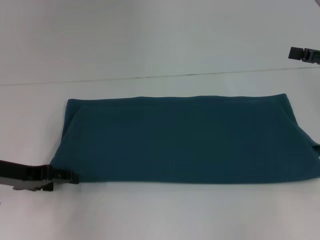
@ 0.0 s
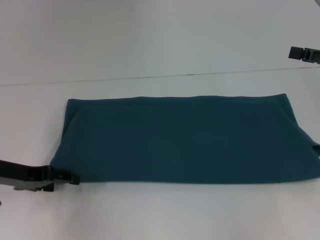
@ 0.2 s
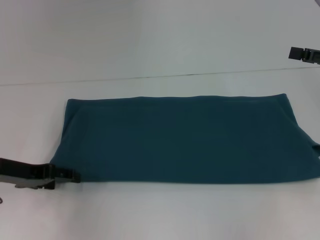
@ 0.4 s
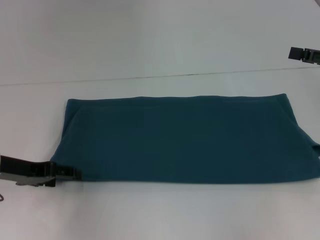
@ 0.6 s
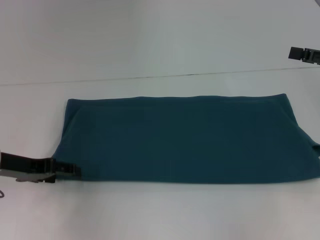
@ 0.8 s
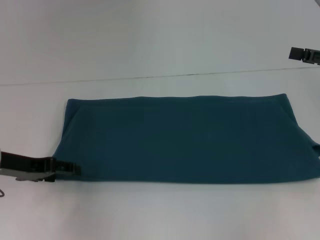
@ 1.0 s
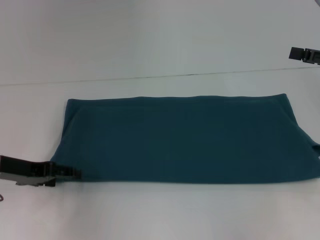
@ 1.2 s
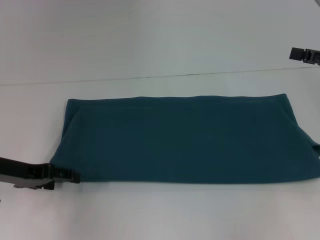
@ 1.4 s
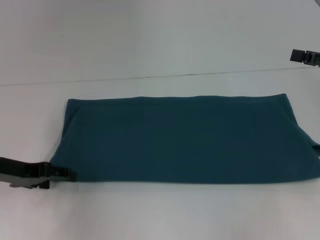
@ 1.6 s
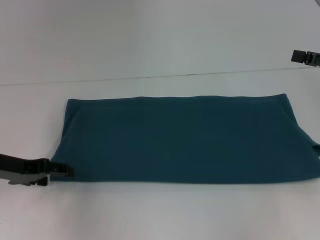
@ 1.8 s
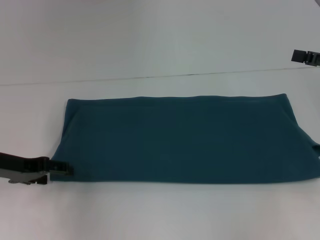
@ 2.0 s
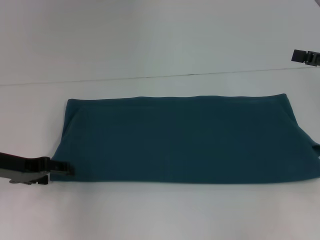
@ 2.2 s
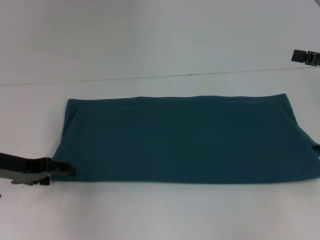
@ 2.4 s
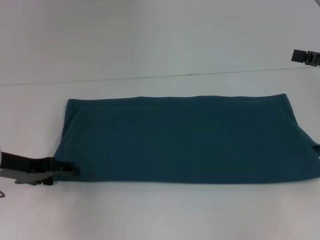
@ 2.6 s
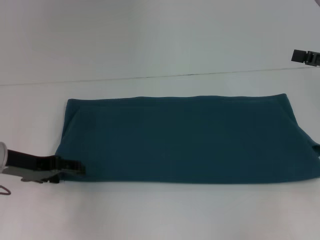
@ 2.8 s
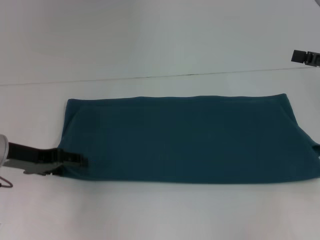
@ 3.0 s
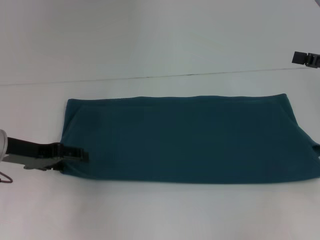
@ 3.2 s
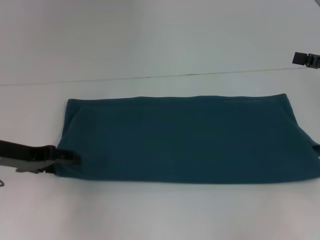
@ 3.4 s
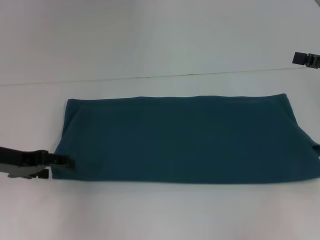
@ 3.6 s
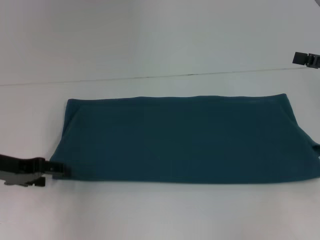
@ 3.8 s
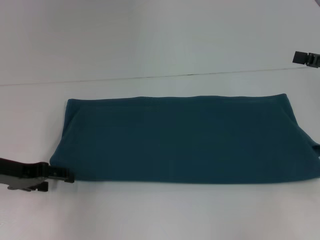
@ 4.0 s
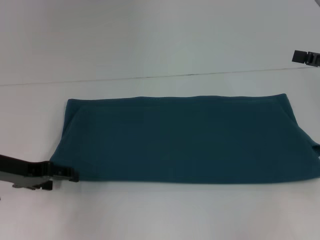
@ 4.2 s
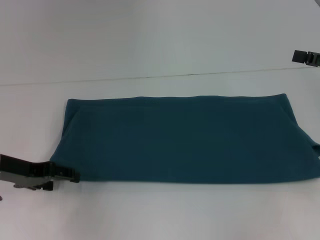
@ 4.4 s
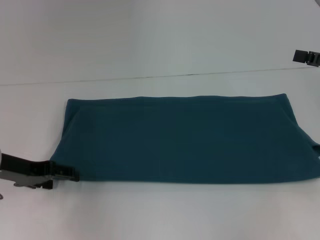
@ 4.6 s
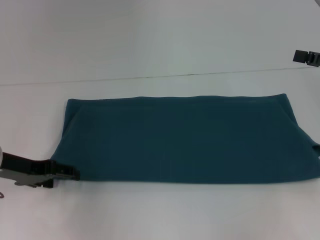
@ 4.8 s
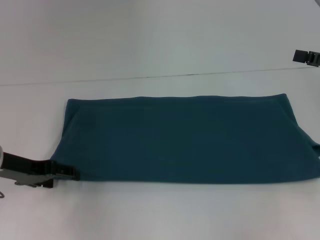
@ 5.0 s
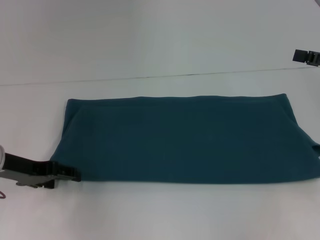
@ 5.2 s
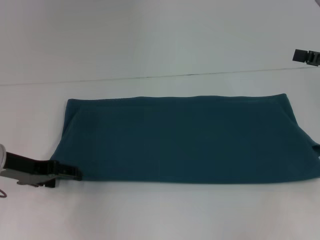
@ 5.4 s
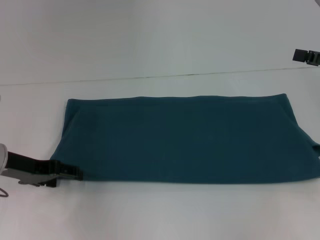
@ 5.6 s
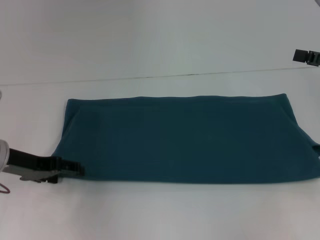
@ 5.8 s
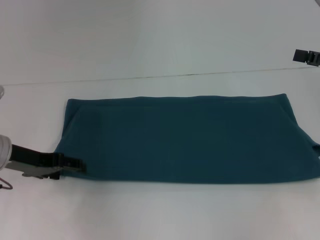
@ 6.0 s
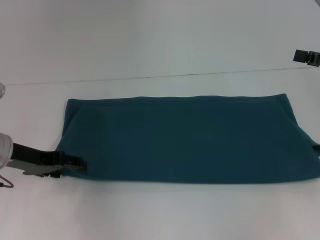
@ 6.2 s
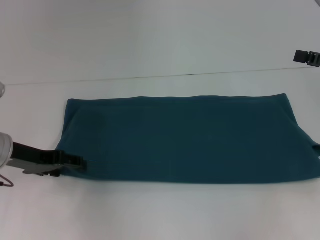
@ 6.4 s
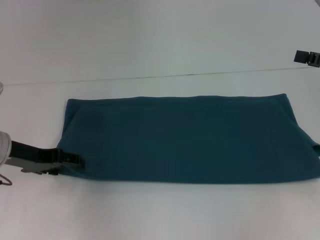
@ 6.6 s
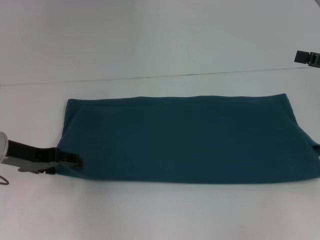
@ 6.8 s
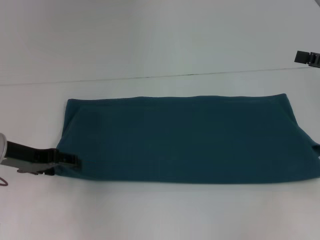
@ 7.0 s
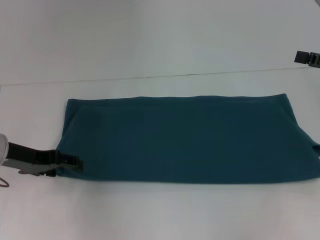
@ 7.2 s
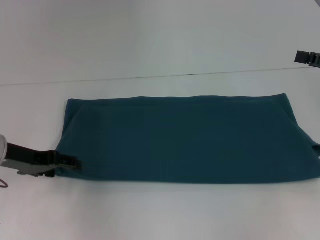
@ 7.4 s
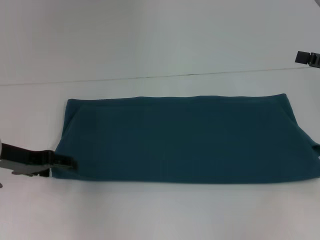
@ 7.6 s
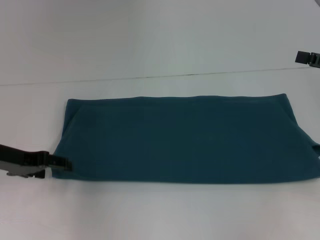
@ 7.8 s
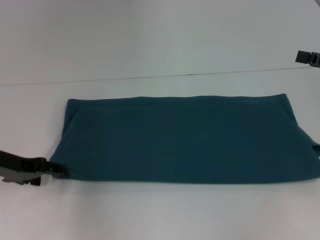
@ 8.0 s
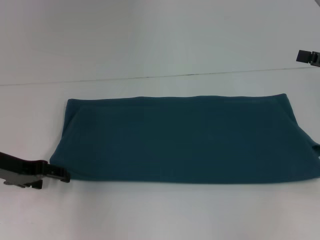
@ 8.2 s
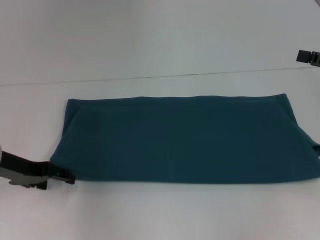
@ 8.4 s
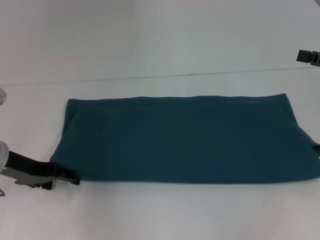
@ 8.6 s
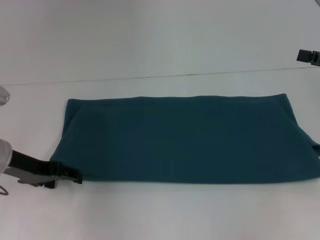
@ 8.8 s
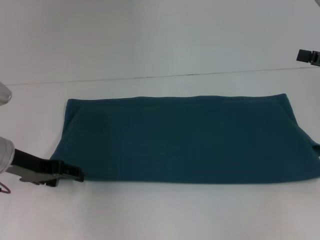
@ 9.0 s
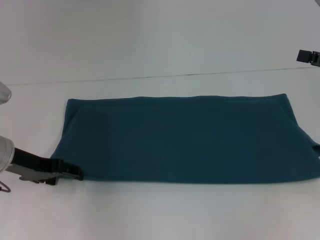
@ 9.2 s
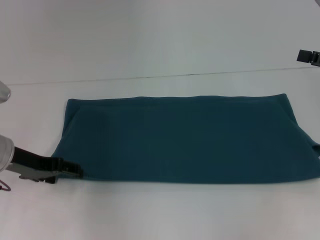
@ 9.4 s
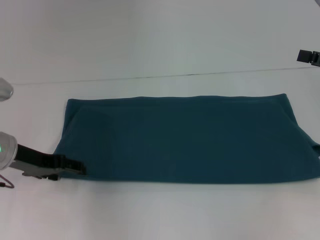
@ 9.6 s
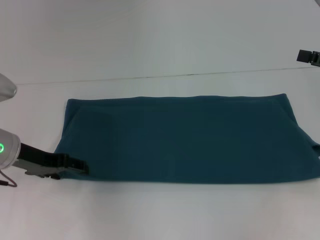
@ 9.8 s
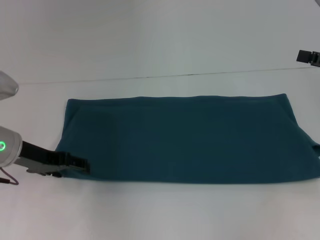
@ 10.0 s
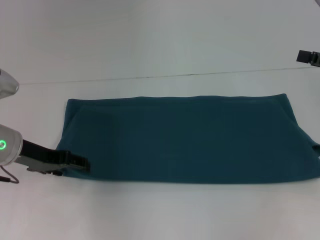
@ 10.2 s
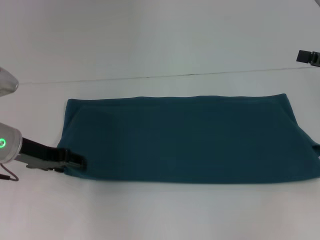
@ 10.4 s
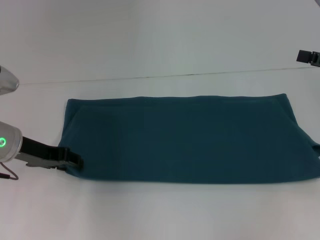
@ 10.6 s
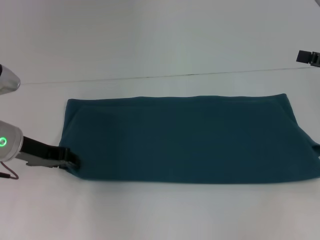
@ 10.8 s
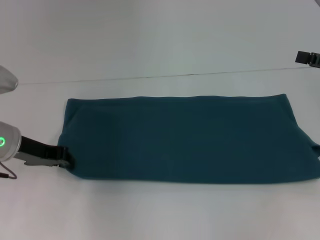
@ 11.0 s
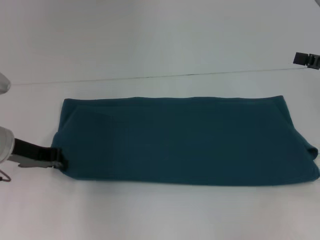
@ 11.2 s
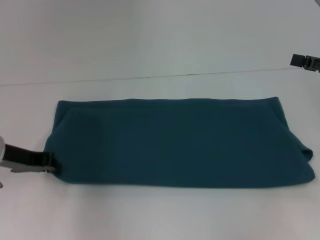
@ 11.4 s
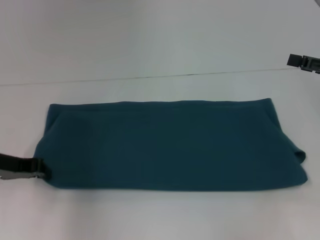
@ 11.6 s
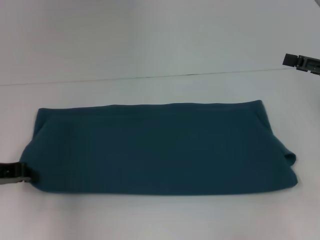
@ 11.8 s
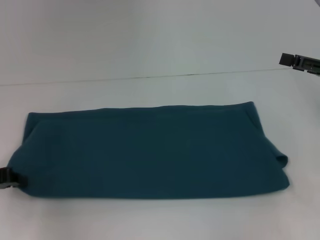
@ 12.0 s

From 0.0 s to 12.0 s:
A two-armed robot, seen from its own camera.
From 0.0 s to 1.6 s: Neither gripper changes place.
From 1.6 s to 6.0 s: There are only small adjustments of the grippers.
From 6.0 s to 7.6 s: Both grippers stay put.
From 7.6 s to 10.4 s: The grippers move only a little.
From 10.4 s to 12.0 s: The left gripper is displaced to the left and backward by approximately 10 cm, and closes its fingers.

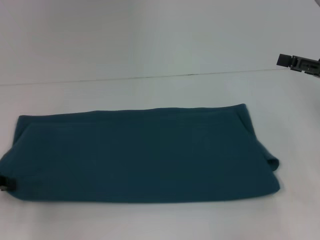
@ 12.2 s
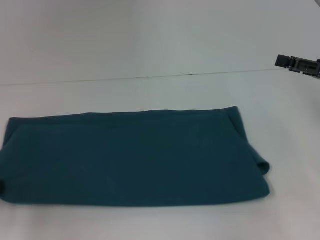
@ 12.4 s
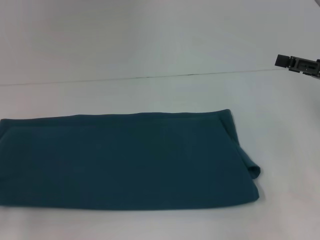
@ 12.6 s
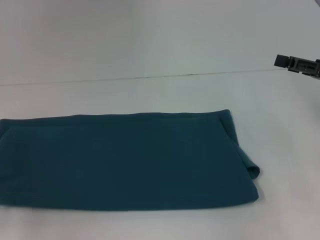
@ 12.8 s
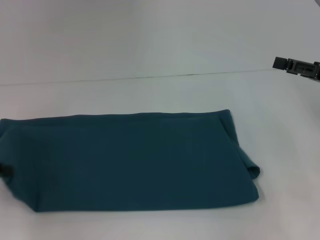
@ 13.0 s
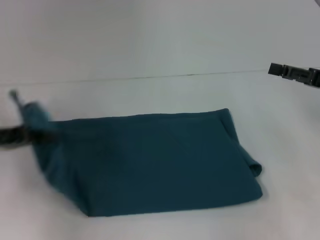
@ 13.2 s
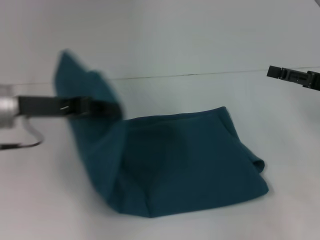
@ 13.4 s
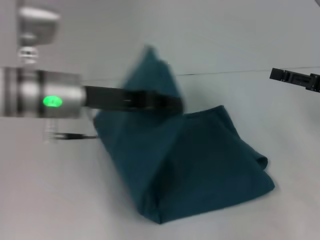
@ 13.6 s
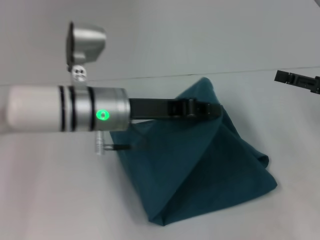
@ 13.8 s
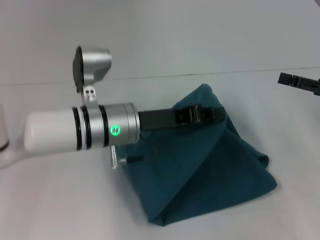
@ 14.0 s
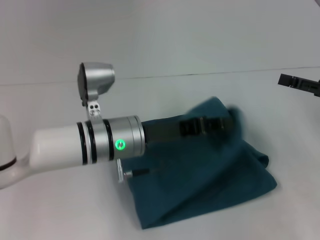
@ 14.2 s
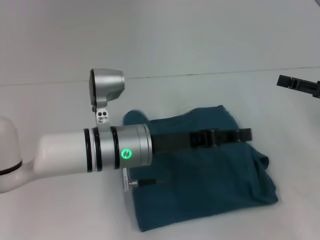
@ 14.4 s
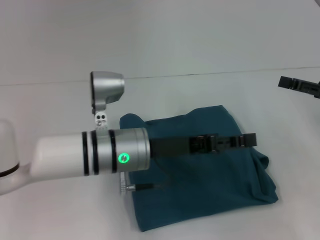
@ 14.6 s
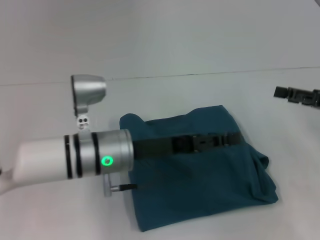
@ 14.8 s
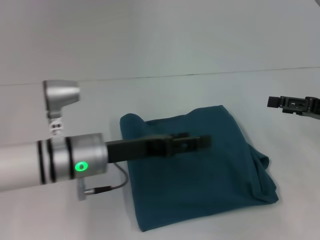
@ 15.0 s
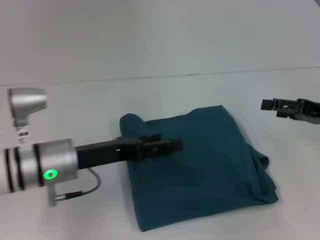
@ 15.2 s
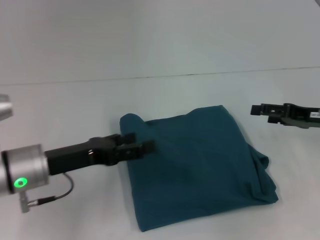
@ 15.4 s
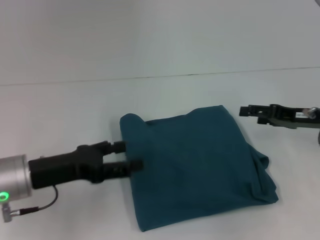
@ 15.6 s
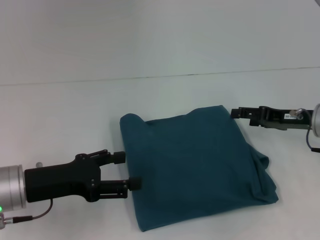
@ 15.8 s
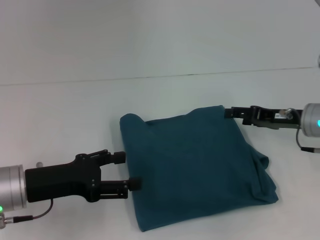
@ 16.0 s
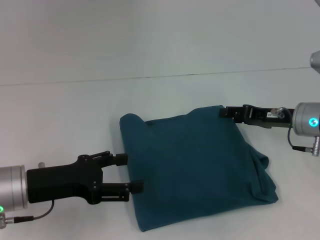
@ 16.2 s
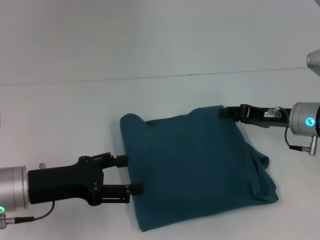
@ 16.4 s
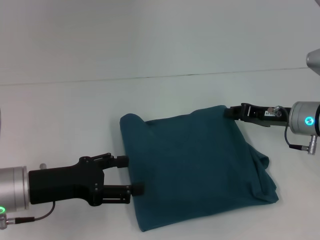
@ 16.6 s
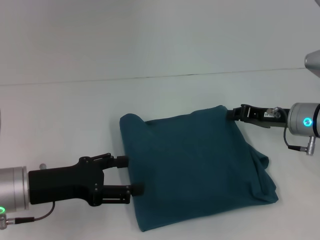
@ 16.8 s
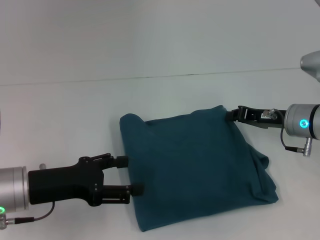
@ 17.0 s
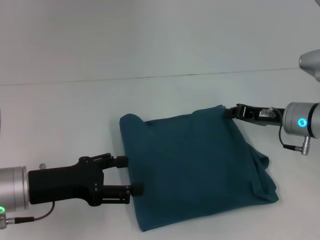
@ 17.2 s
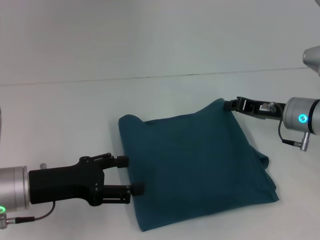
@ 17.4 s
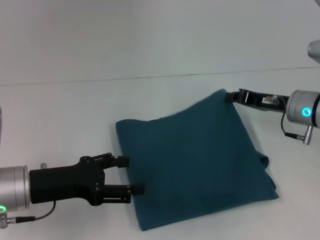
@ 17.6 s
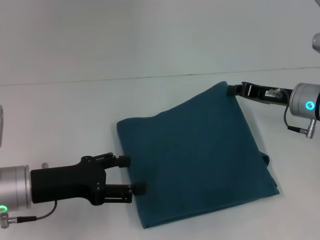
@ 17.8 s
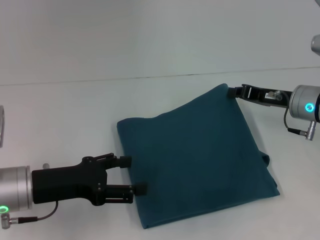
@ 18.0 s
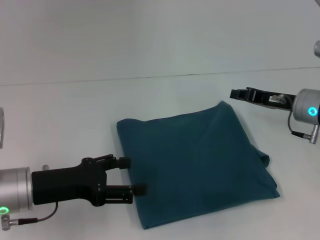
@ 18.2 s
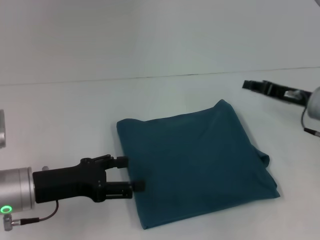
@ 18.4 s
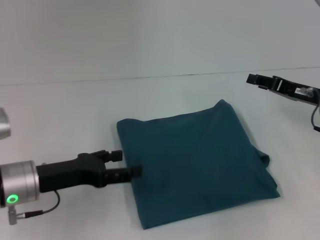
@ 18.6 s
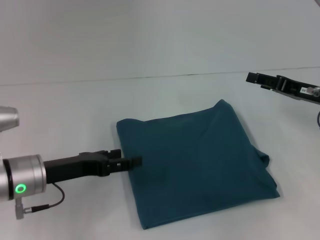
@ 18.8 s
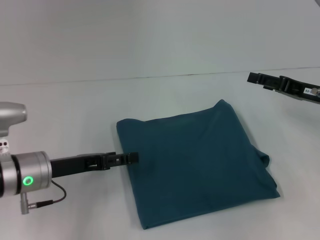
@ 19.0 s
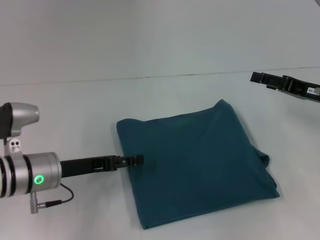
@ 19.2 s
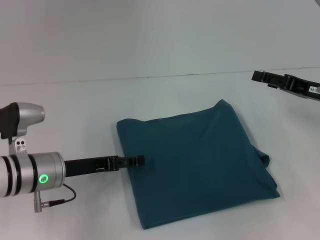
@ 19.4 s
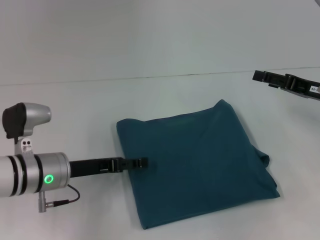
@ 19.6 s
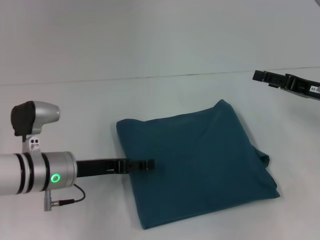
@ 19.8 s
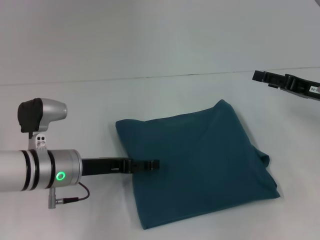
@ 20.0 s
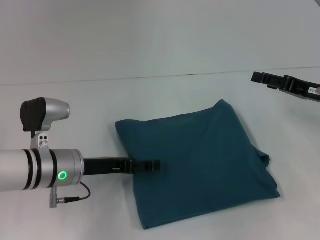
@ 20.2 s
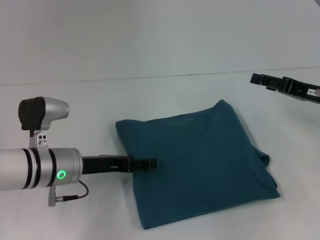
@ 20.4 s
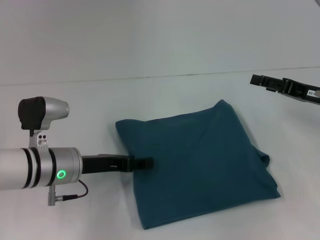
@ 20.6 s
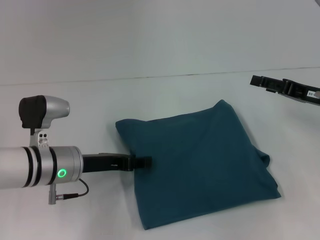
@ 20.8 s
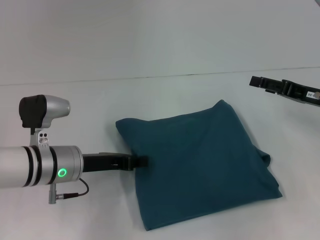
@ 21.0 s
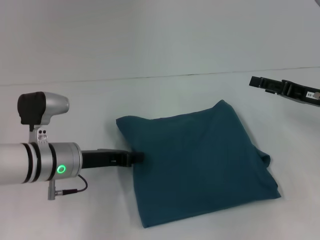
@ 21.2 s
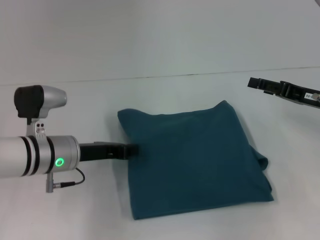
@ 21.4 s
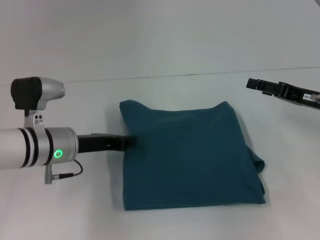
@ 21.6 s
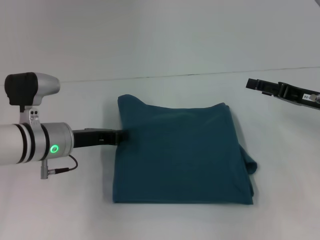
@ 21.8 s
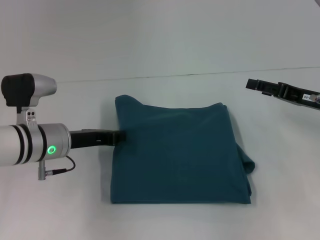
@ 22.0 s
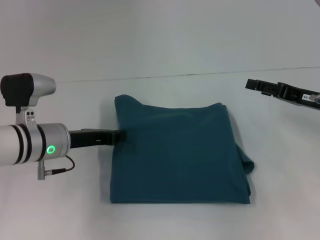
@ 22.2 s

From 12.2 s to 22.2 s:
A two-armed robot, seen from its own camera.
Step, from 12.2 s to 14.4 s: Fold the clothes to the left.
From 12.2 s to 13.6 s: The left gripper travels to the right and upward by approximately 20 cm.
From 13.6 s to 15.0 s: The left gripper moves downward, roughly 10 cm, and opens its fingers.
From 15.0 s to 16.4 s: The two grippers go some 10 cm to the left. The left gripper opens up.
From 16.4 s to 18.0 s: The right gripper closes its fingers.
From 18.0 s to 19.4 s: The left gripper shifts by some 5 cm. The right gripper travels to the right by approximately 5 cm, and opens up.
From 19.4 s to 20.8 s: The grippers make only small movements.
From 20.8 s to 22.2 s: The left gripper closes up.
